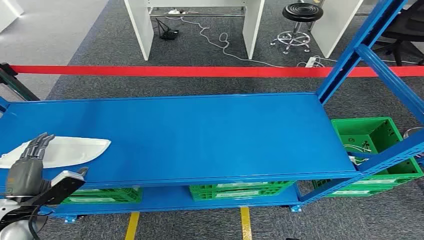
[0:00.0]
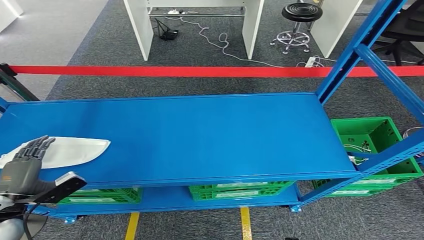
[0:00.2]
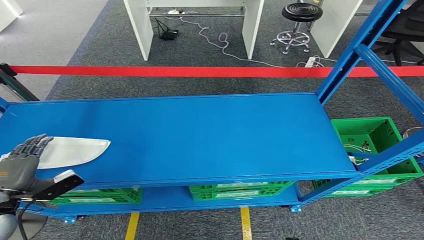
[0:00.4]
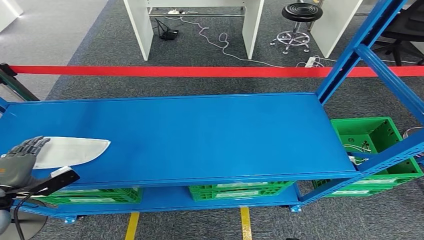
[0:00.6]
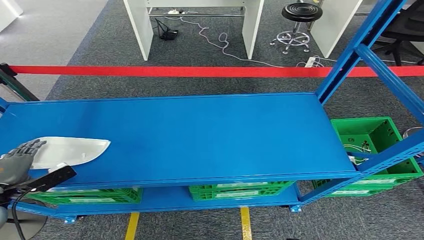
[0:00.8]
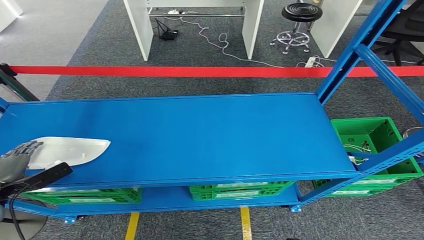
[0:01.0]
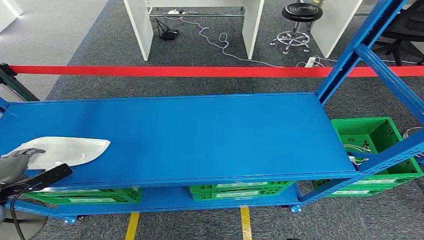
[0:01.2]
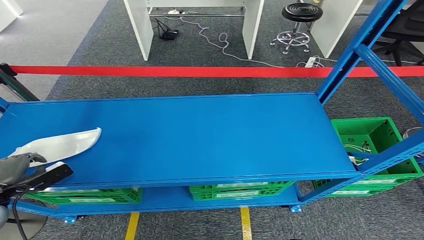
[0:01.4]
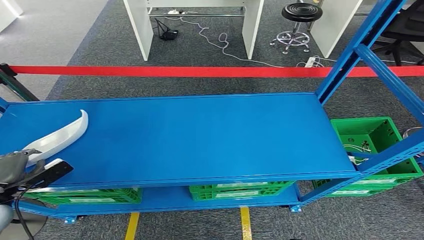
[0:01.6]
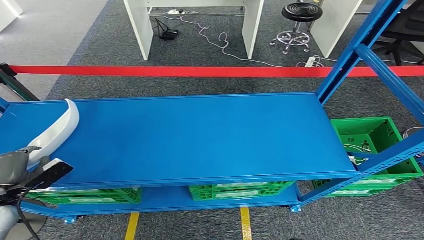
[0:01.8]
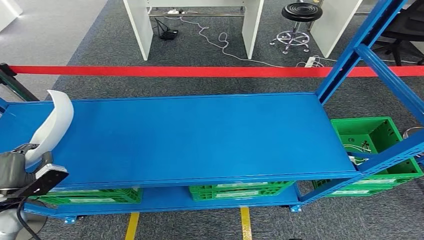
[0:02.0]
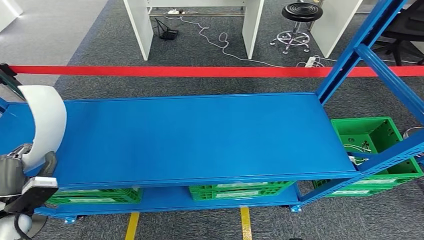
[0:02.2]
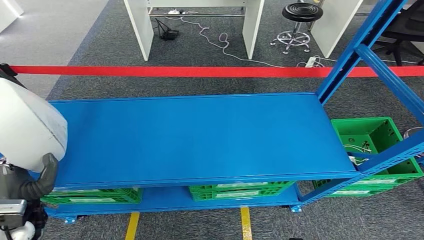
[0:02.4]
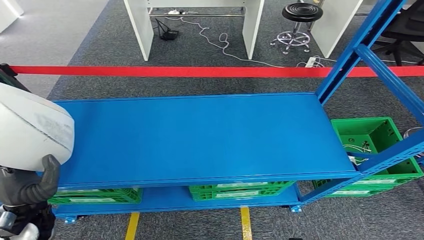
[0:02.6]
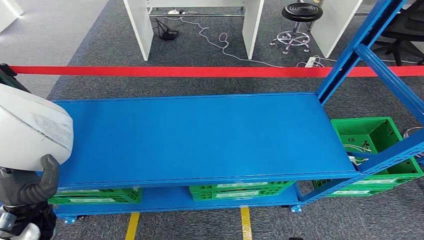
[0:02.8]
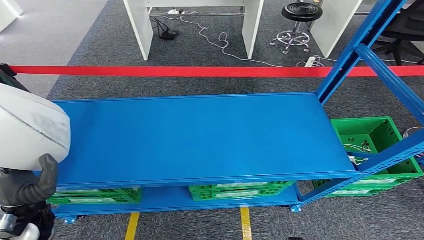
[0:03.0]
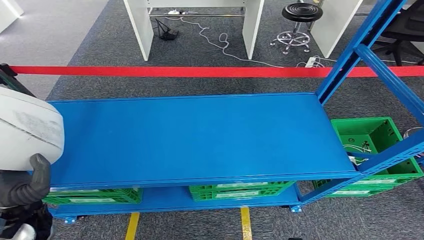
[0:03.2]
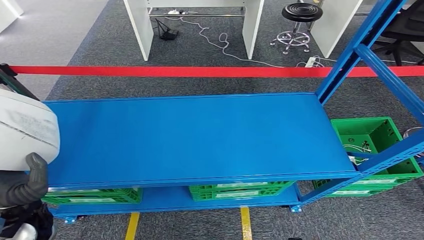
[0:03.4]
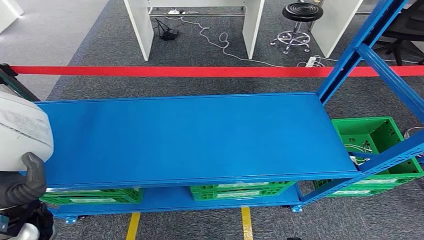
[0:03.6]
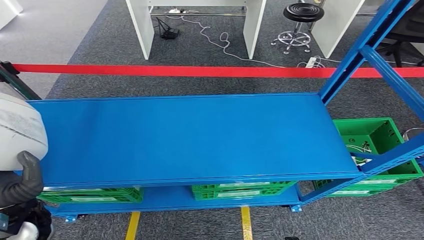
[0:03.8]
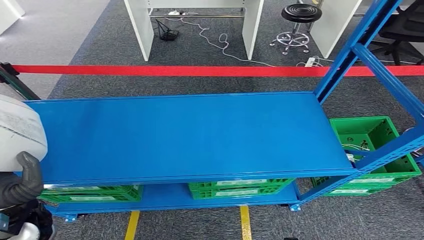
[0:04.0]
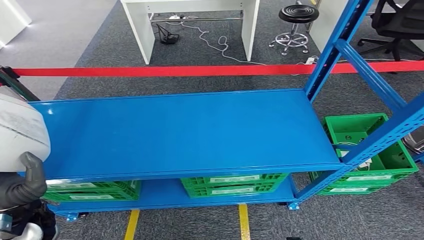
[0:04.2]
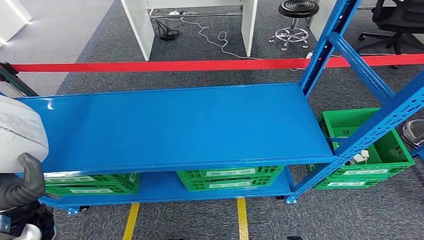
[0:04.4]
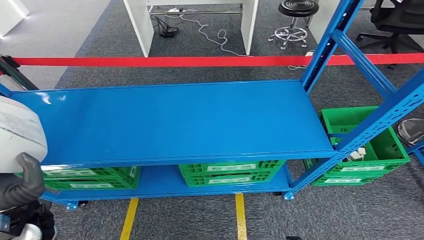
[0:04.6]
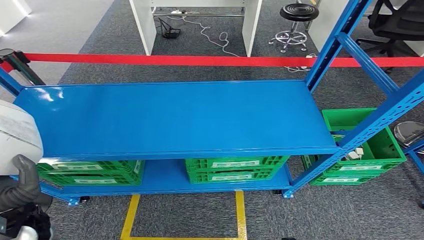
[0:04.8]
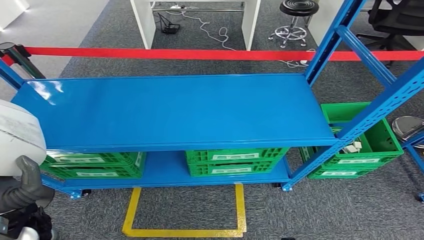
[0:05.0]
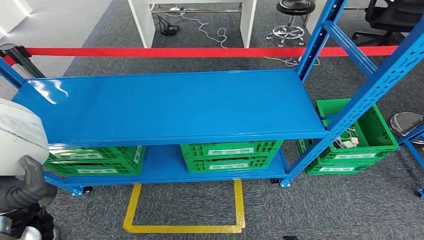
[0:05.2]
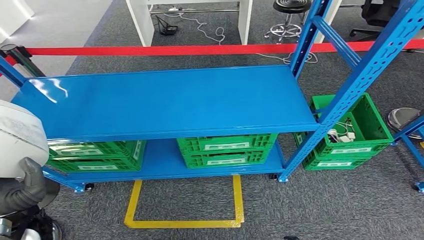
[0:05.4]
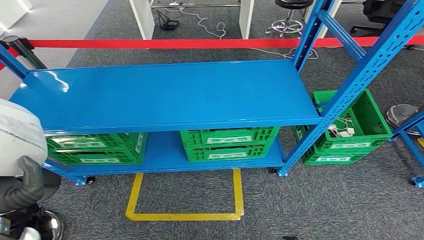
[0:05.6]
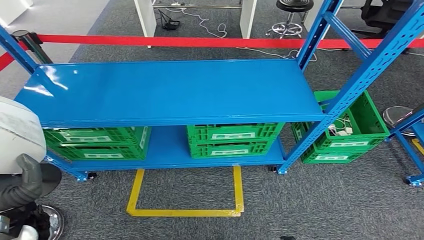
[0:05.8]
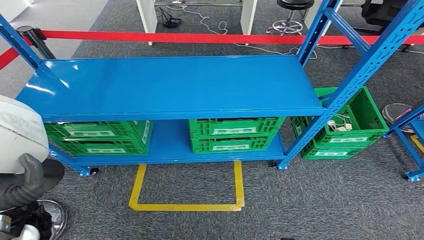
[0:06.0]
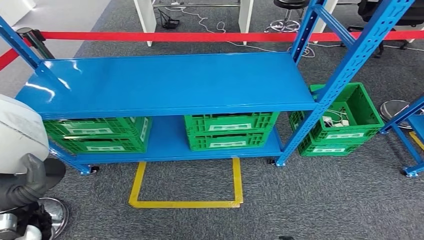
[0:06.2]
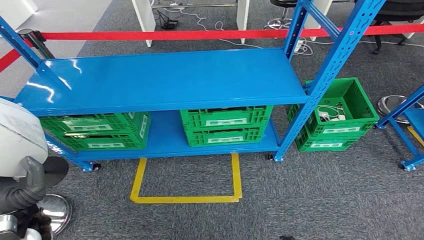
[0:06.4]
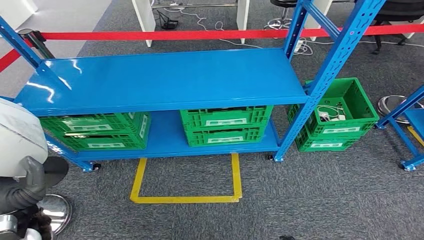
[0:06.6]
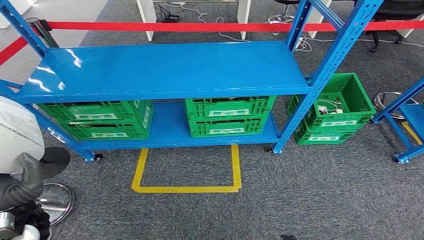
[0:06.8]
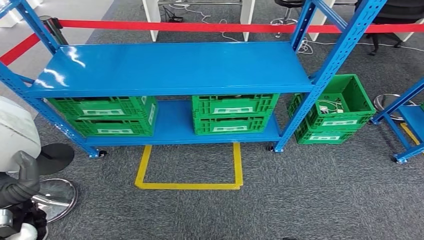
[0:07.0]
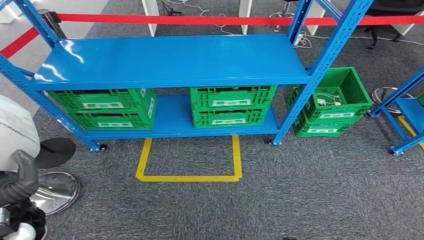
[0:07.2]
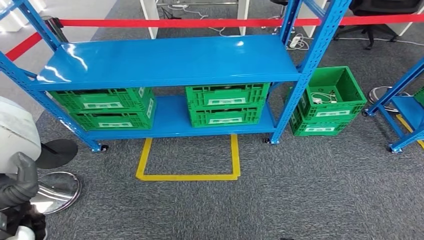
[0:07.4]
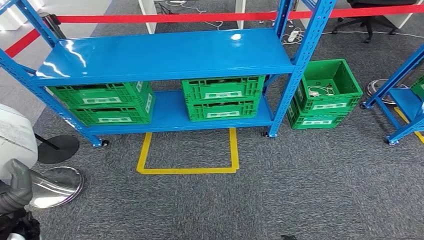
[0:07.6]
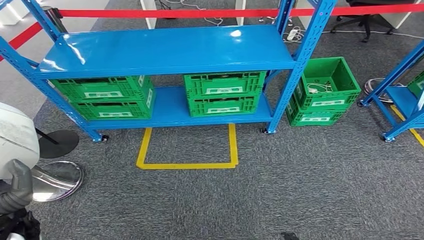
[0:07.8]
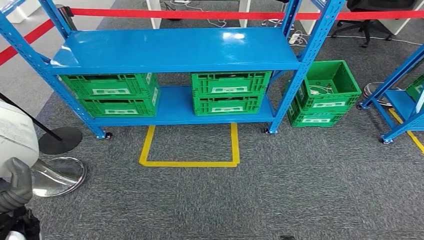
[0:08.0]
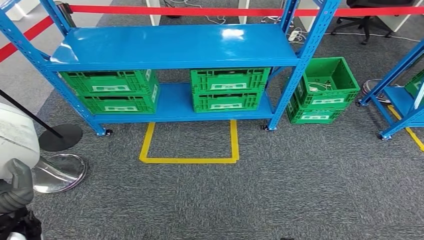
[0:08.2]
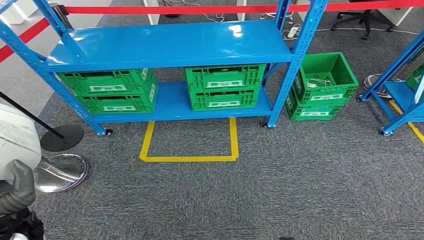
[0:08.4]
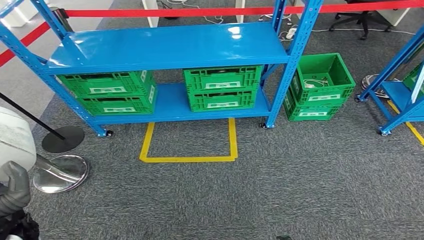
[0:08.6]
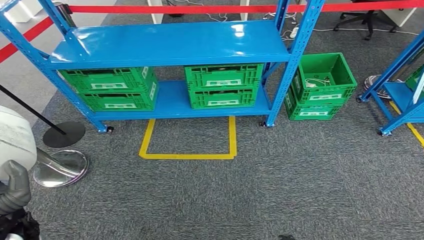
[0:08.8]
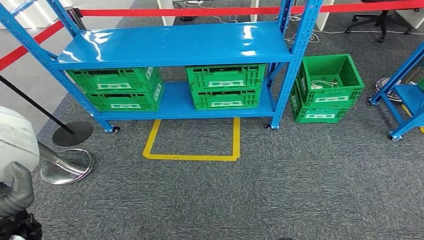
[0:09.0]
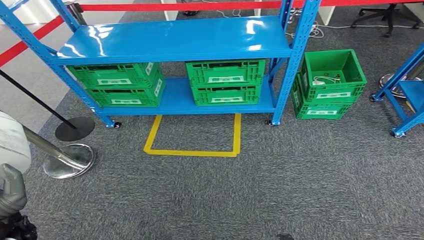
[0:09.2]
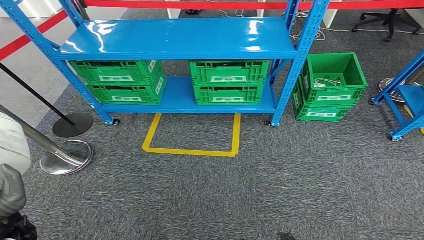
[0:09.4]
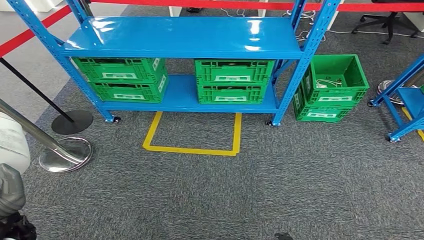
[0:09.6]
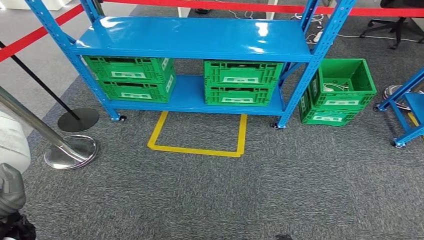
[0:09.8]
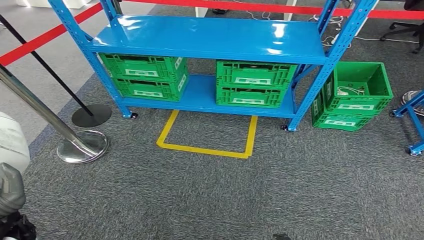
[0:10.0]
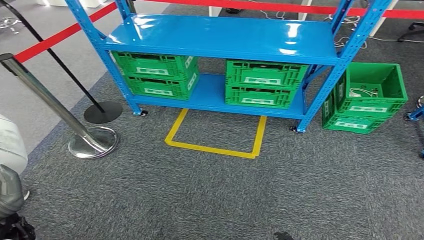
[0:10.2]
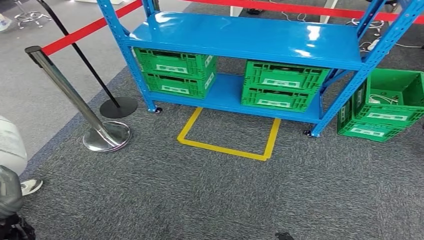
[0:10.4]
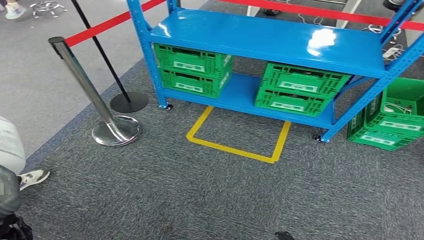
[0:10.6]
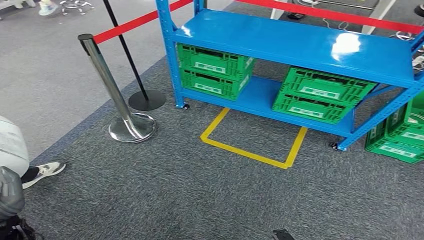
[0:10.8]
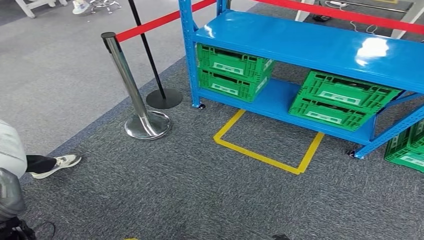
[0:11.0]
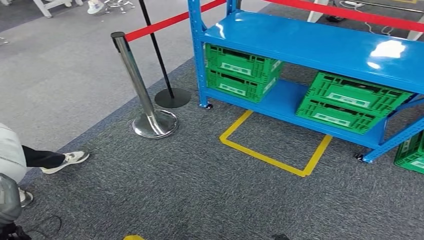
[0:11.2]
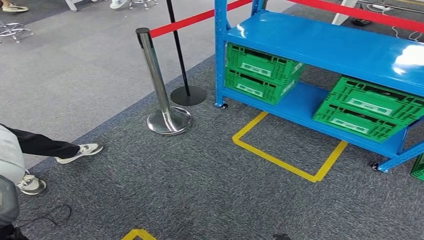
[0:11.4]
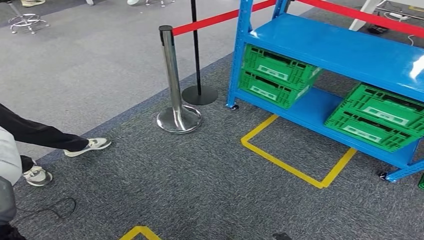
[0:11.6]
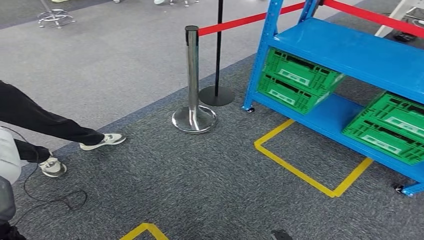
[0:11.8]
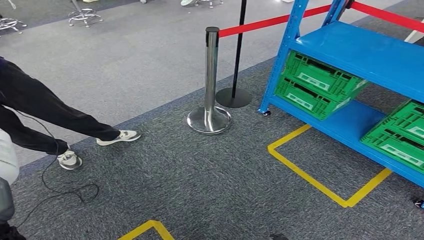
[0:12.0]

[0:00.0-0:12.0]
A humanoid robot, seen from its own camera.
Step, 0:00.0 to 0:04.8: Pick up the small parts from the shelf.
0:01.6 to 0:03.0: The left hand is displaced to the right by about 15 cm.

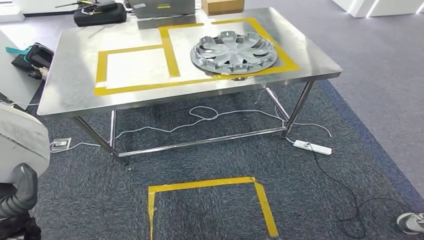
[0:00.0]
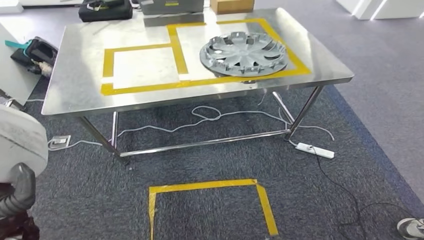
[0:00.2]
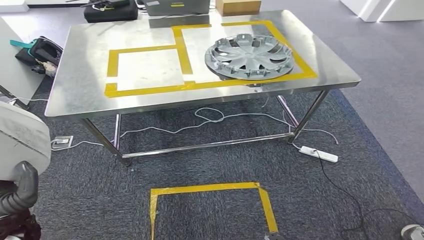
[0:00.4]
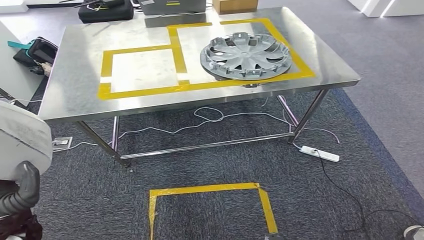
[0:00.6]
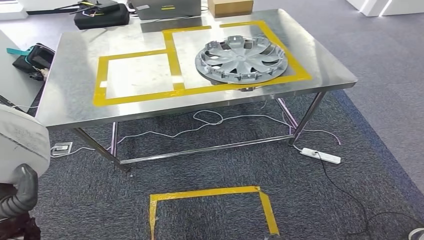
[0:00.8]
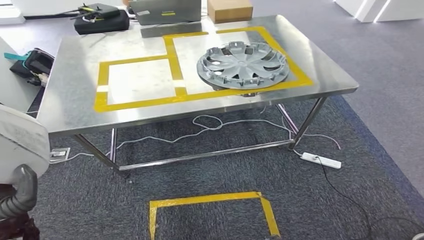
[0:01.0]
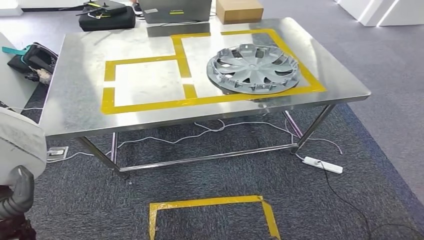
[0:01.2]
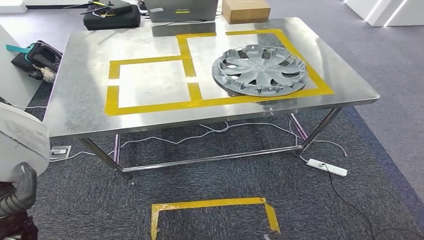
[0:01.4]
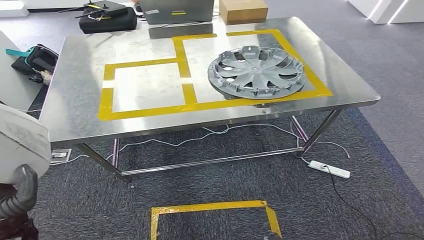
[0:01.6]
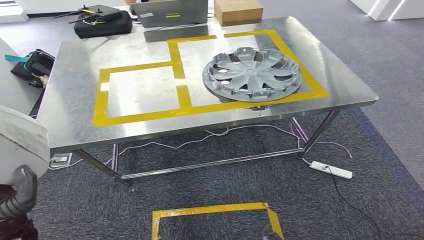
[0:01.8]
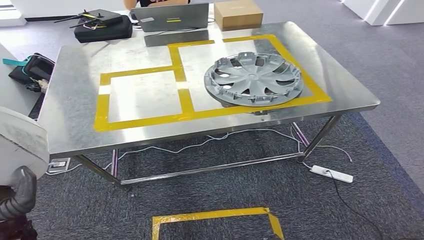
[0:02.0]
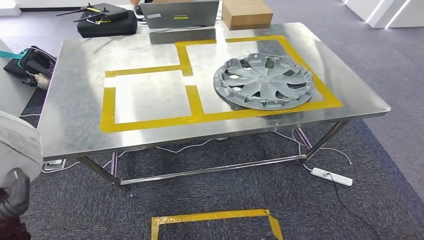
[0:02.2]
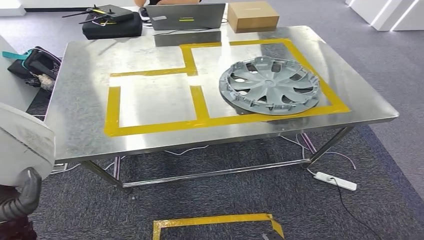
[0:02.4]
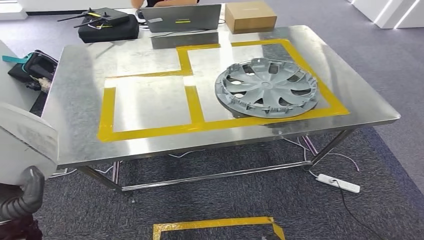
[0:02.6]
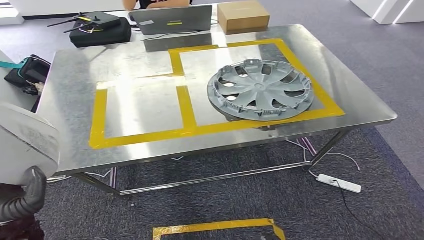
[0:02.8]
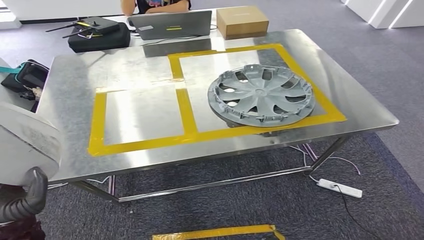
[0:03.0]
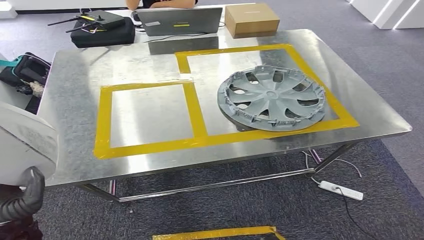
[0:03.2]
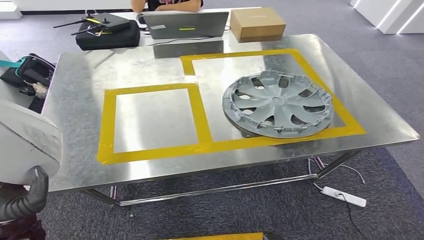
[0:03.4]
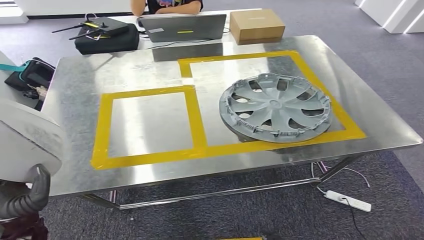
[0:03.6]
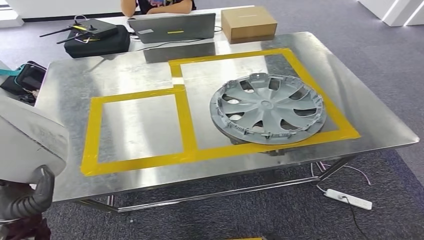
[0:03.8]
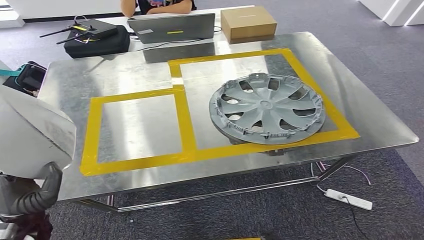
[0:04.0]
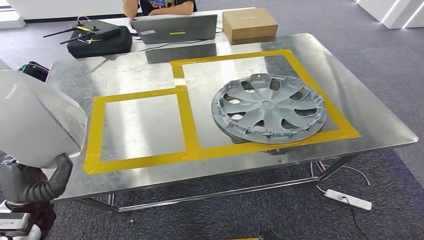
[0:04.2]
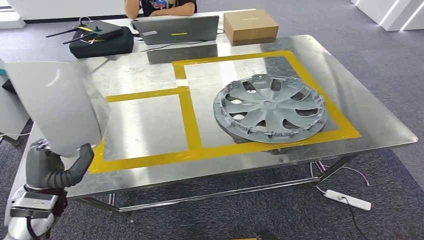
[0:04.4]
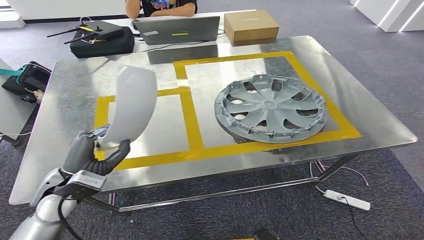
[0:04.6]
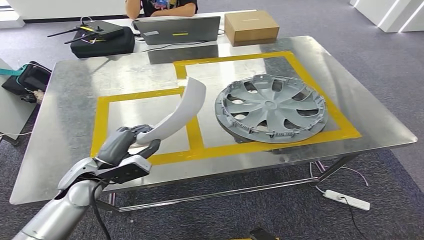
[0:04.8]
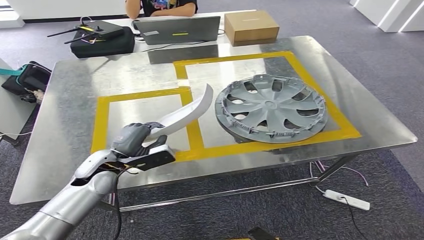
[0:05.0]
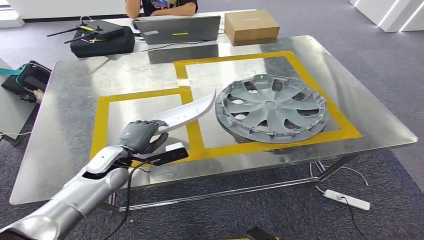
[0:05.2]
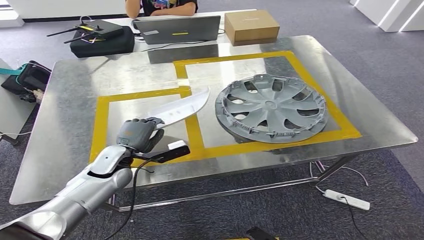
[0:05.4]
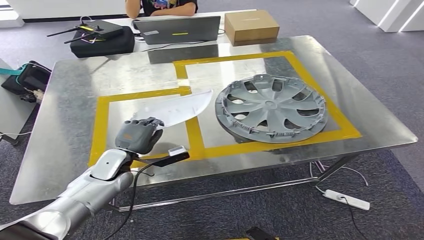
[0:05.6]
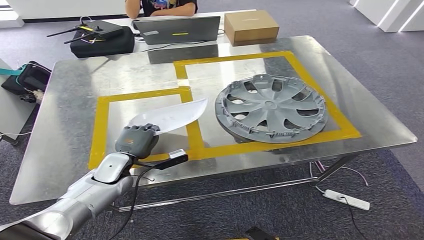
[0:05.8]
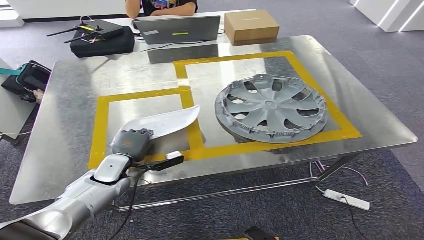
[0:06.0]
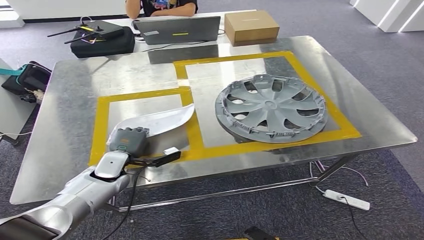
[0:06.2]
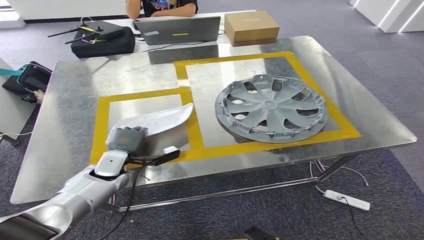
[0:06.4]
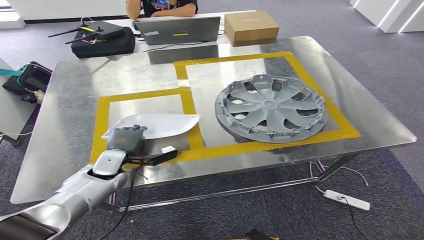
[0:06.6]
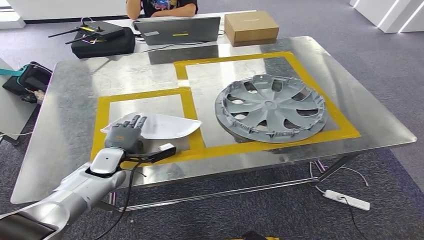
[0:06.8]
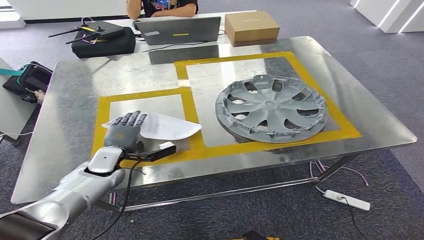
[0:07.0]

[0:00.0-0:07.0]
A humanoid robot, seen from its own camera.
Step, 0:00.0 to 0:02.6: Move the small parts to the workbench.
